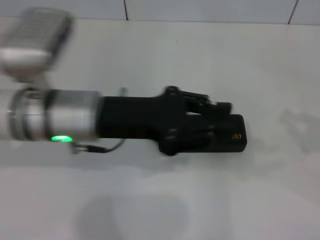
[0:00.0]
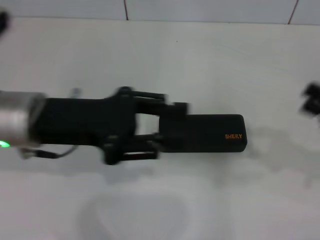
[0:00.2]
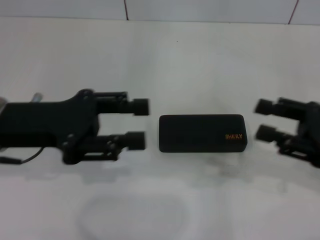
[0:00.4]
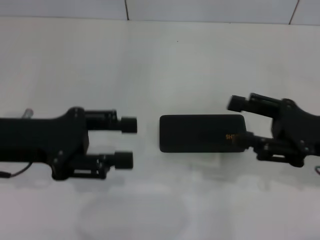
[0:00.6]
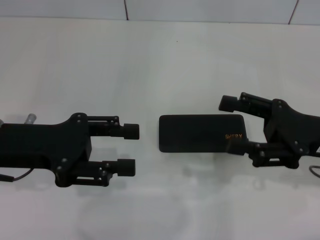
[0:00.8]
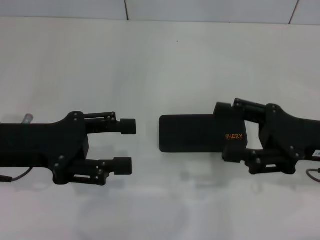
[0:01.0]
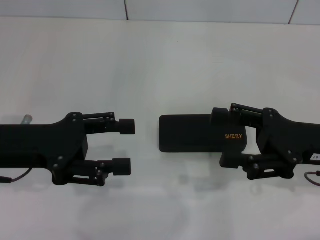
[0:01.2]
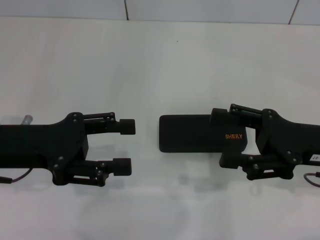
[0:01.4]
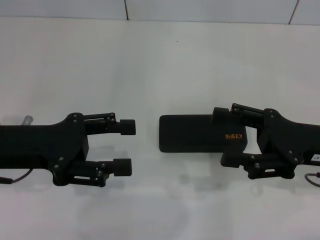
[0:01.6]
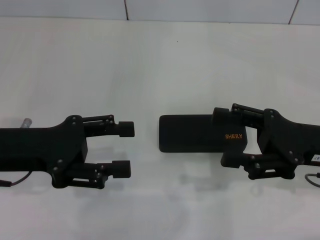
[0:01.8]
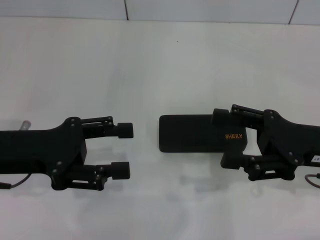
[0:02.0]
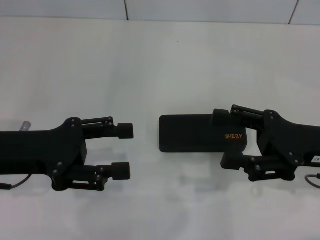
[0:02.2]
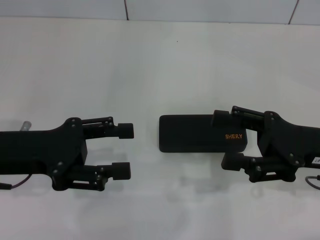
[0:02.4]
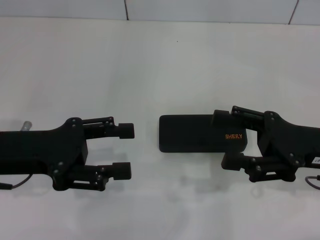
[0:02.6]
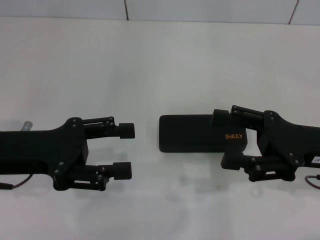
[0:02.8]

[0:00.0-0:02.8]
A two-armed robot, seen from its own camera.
0:00.0 to 0:01.4: Both grippers travel together to the left, approximately 15 cm. The right gripper opens up, while the left gripper opens up.
0:01.4 to 0:02.8: Both grippers stay put.
